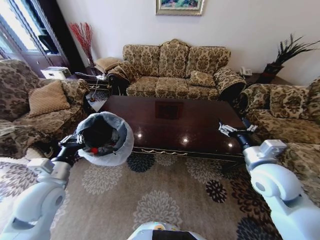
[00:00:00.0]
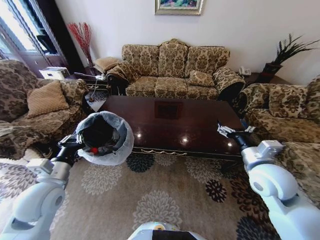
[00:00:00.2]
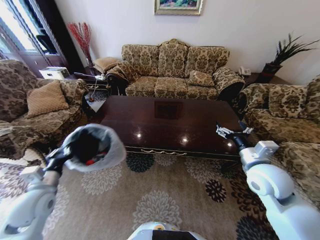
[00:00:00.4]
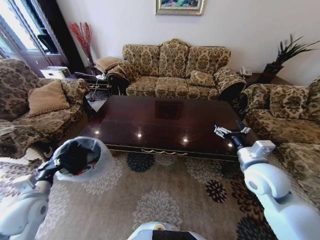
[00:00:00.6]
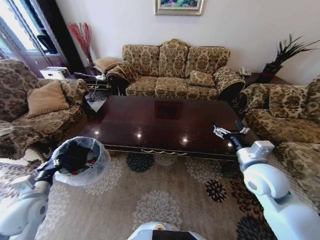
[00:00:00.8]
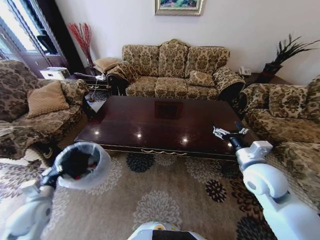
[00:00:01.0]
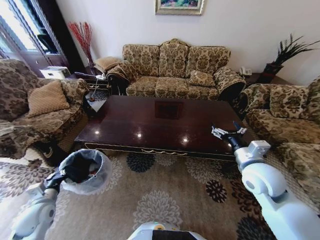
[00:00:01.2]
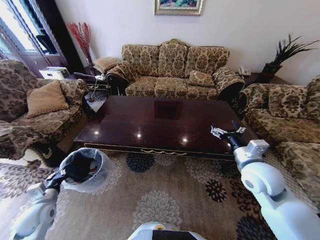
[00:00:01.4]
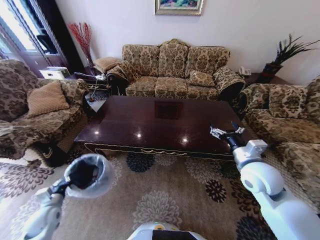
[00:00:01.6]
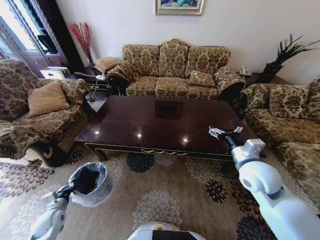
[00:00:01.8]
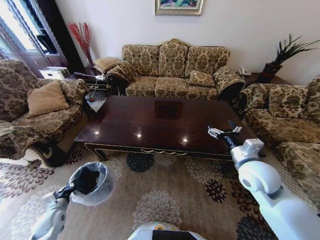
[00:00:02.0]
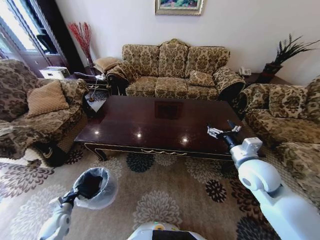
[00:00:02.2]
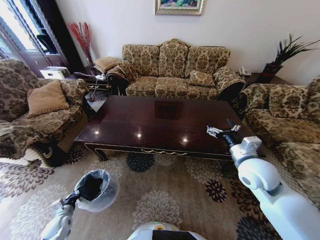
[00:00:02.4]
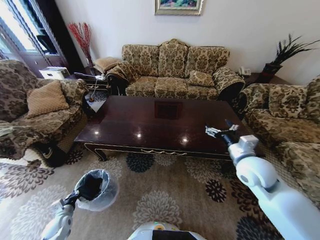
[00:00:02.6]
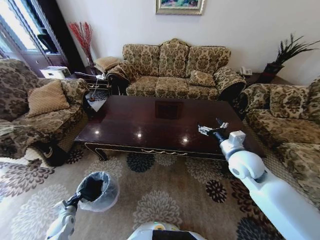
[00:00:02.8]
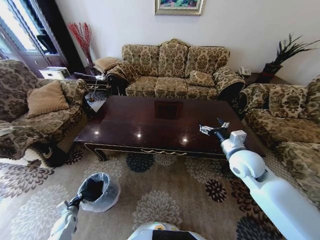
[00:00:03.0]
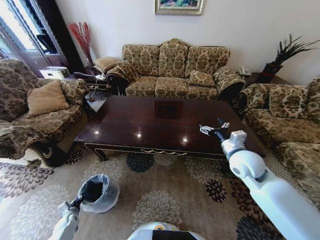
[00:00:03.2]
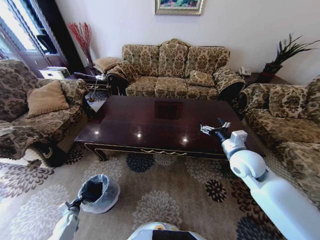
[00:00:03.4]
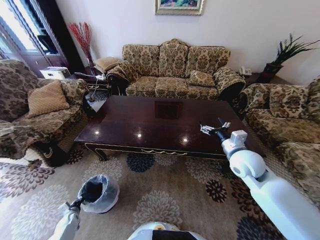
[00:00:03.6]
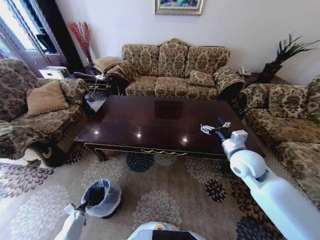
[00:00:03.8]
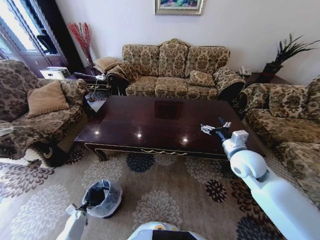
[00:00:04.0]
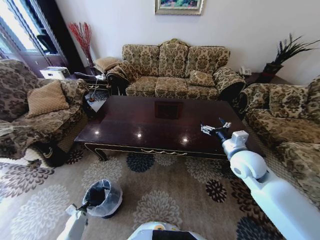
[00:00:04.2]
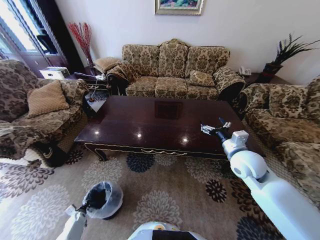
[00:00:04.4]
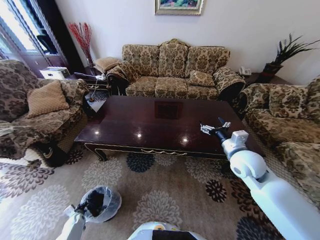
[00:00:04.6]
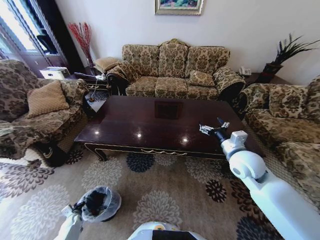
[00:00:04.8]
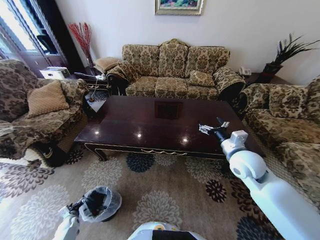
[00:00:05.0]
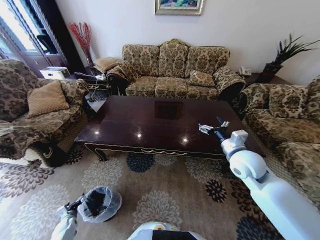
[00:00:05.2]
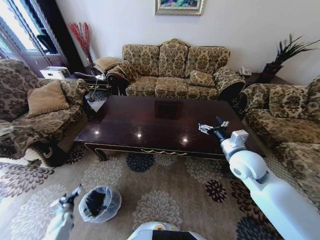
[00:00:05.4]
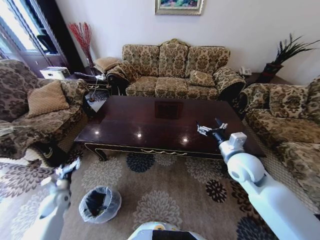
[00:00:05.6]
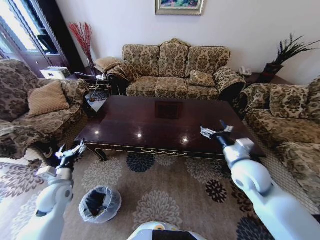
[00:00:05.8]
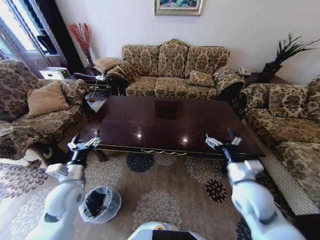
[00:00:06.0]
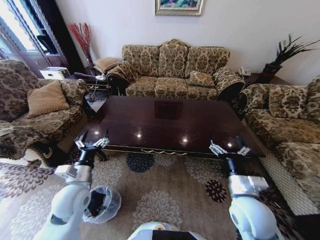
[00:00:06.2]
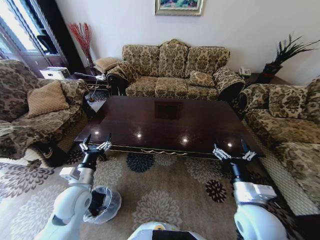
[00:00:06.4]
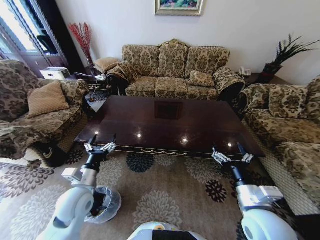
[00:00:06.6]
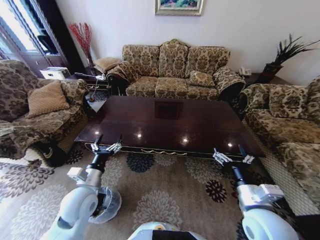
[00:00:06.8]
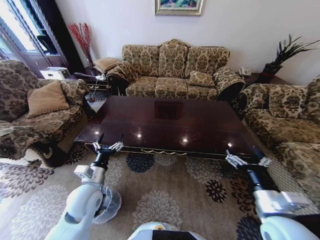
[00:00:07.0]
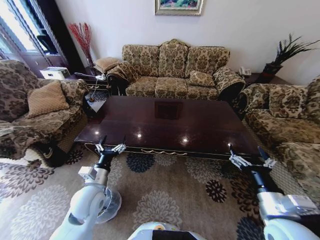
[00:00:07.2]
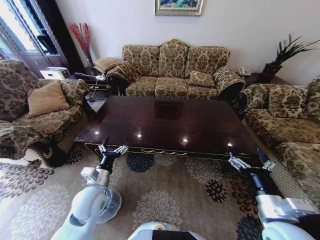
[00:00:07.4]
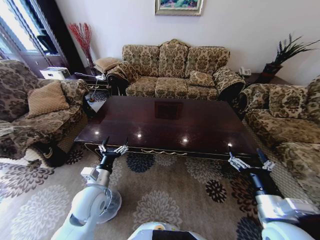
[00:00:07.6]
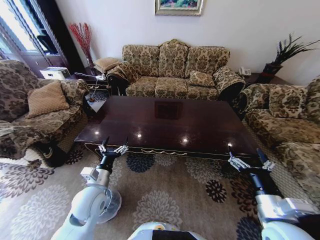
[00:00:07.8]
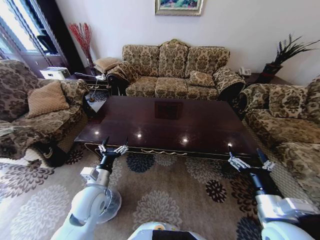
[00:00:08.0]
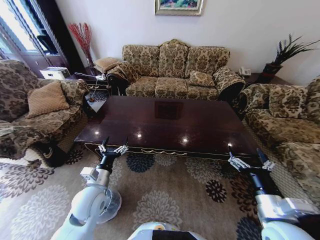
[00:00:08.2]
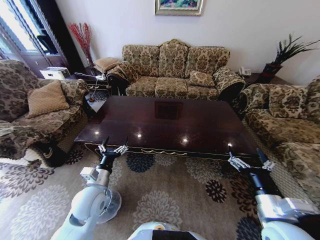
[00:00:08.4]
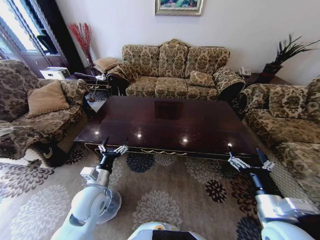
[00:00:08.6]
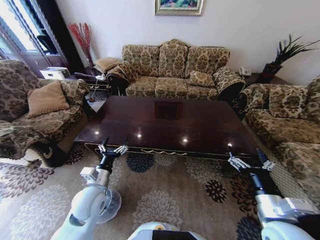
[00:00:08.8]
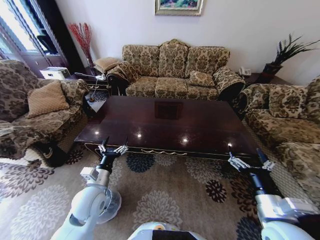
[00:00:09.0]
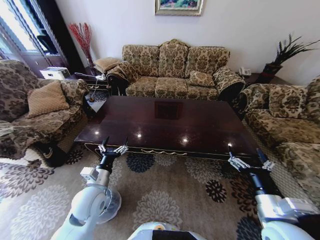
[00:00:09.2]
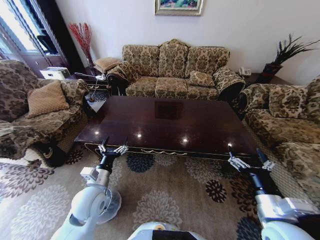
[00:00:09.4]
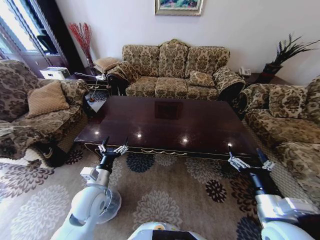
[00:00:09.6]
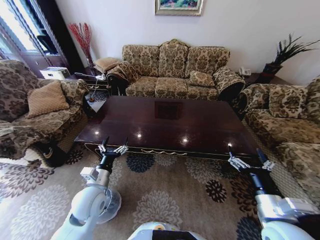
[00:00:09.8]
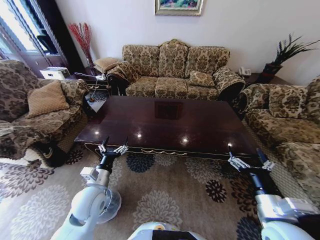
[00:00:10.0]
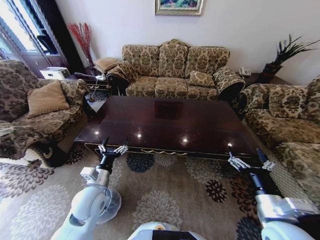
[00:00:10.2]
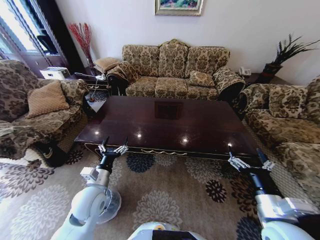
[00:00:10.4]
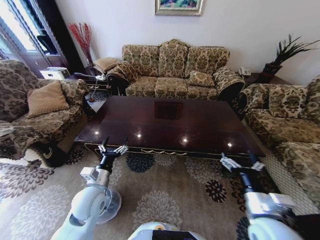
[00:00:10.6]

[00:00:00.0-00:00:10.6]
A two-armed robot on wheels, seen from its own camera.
Task of the whole recording: Move to the front of the table and place the trash on the table into the trash bin.
00:00:00.0 to 00:00:01.6: The left gripper goes about 25 cm downward and to the left.
00:00:01.6 to 00:00:03.0: The right gripper ends up roughly 5 cm from where it was. Meanwhile the left gripper goes about 15 cm downward.
00:00:03.0 to 00:00:04.6: The left gripper shifts about 5 cm downward.
00:00:04.6 to 00:00:06.0: The left gripper moves upward, roughly 40 cm, and opens up. Meanwhile the right gripper is displaced backward by about 10 cm.
00:00:06.0 to 00:00:07.6: The left gripper travels to the right by about 10 cm. The right gripper is displaced backward by about 10 cm.
00:00:07.6 to 00:00:09.0: Neither gripper changes place.
00:00:09.0 to 00:00:10.6: The grippers stay close to where they were, moving slightly.
